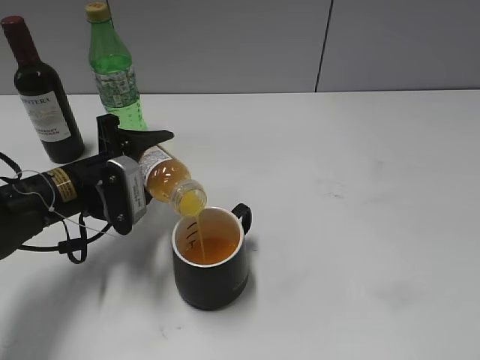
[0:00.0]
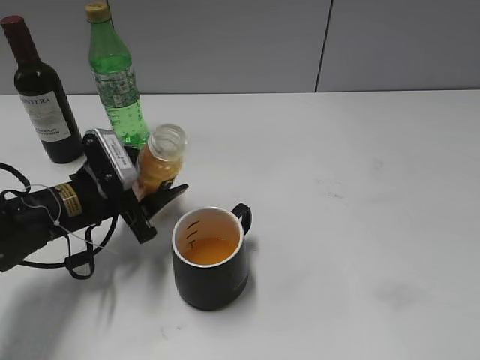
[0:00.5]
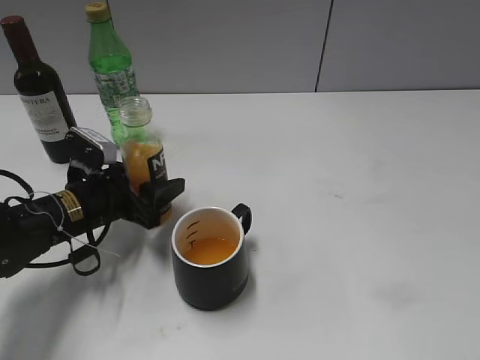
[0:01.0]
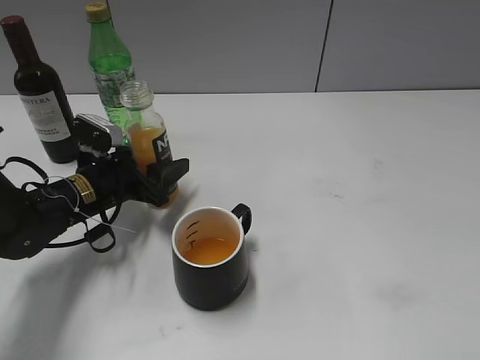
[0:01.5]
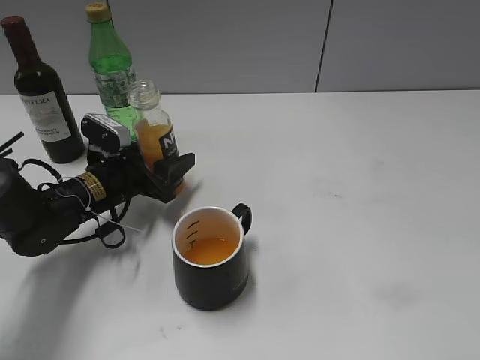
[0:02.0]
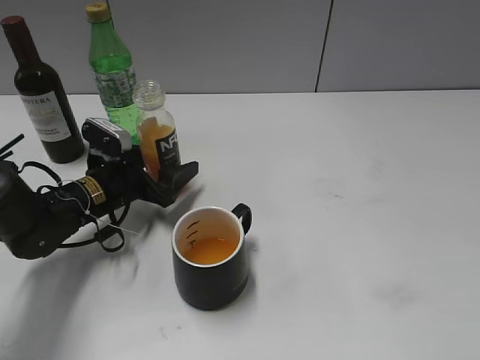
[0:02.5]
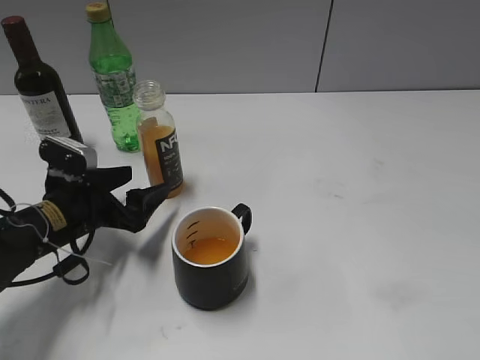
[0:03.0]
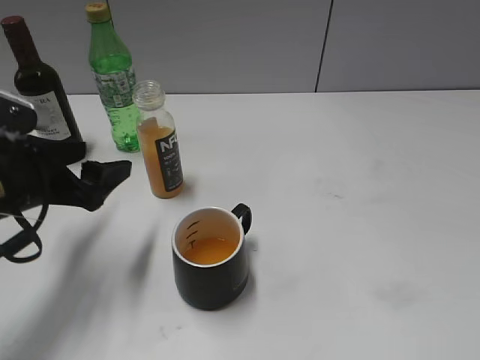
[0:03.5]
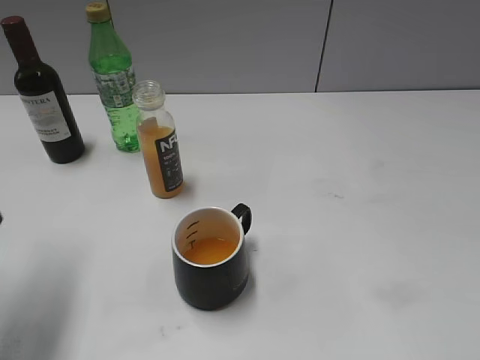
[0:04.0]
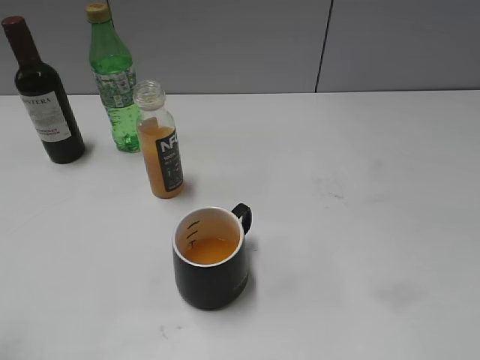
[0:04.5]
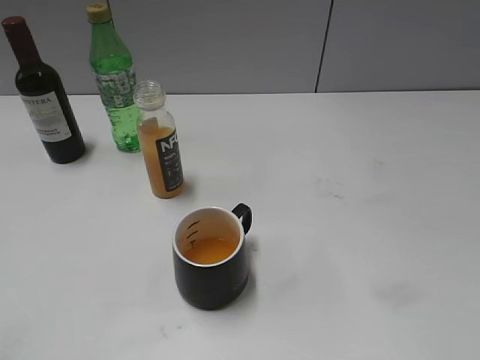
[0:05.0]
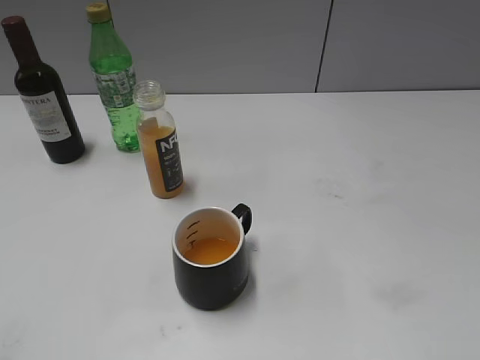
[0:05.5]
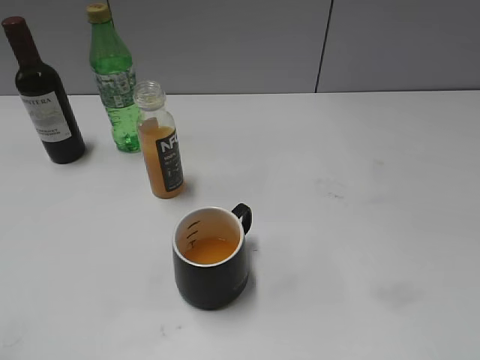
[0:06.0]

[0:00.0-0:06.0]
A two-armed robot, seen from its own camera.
Step, 0:00.5 to 0:02.5: Place the orange juice bottle on the table with left gripper.
0:00.0 to 0:02.0: The left gripper changes place by about 5 cm.
0:02.0 to 0:04.0: The left gripper shifts some 25 cm upward, backward and to the left.
0:04.0 to 0:06.0: The left gripper goes about 20 cm backward.
